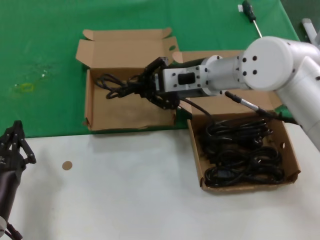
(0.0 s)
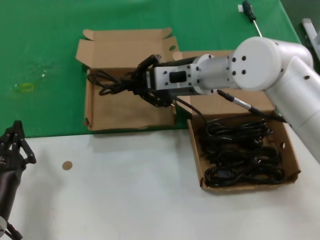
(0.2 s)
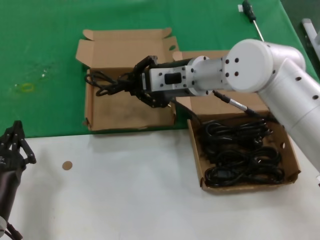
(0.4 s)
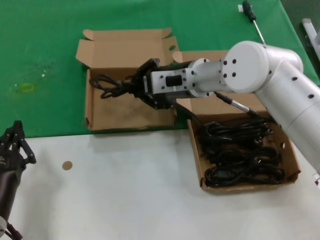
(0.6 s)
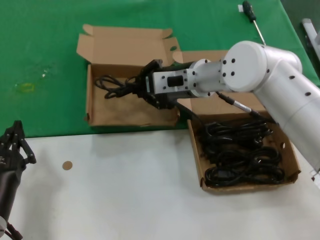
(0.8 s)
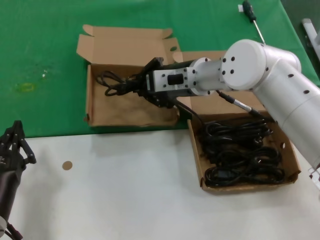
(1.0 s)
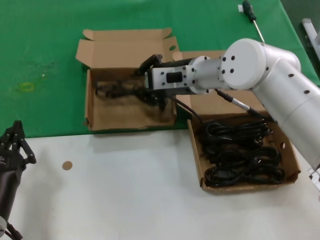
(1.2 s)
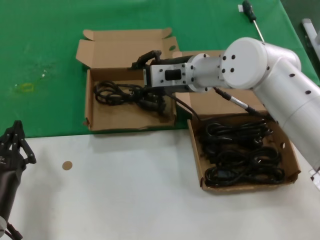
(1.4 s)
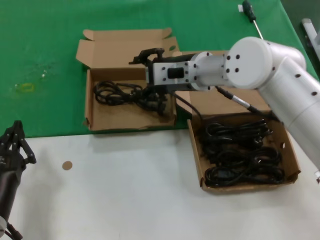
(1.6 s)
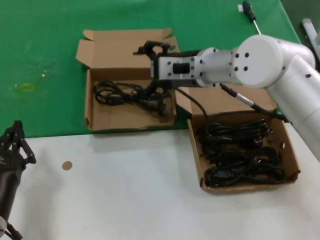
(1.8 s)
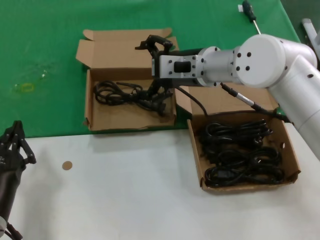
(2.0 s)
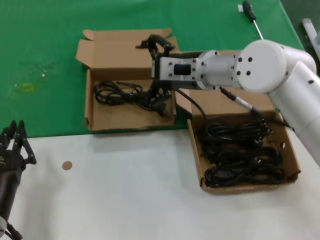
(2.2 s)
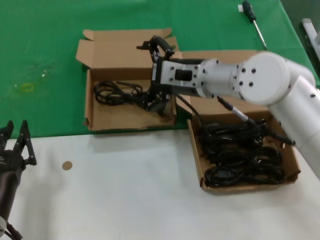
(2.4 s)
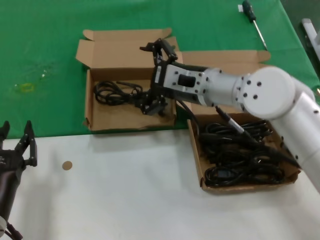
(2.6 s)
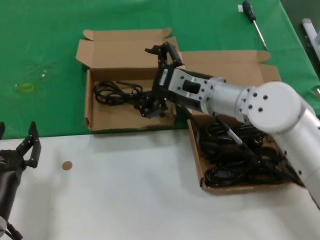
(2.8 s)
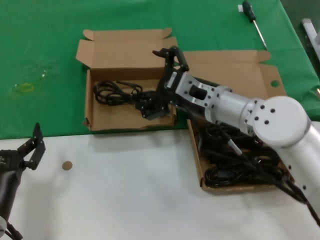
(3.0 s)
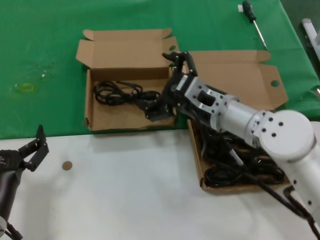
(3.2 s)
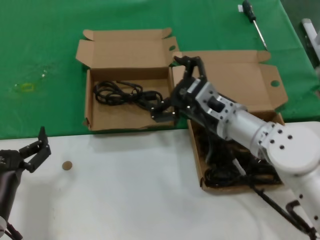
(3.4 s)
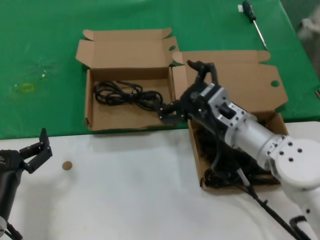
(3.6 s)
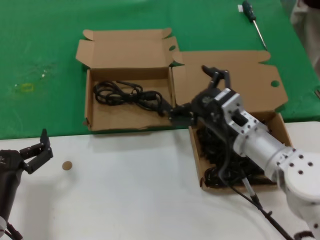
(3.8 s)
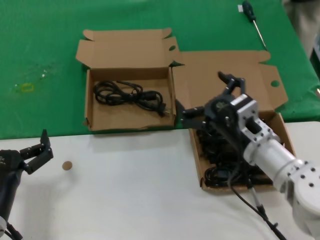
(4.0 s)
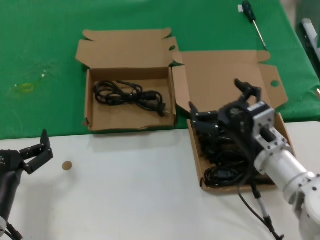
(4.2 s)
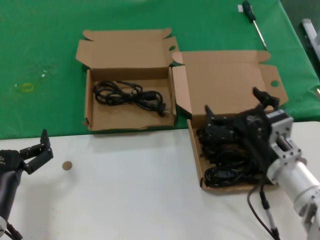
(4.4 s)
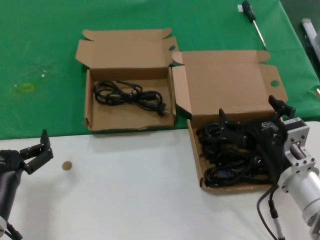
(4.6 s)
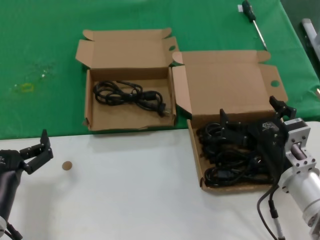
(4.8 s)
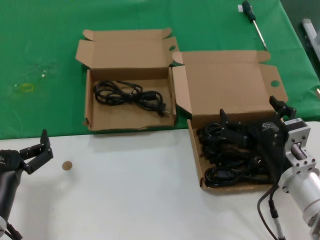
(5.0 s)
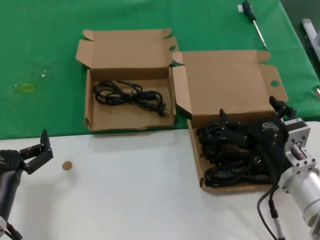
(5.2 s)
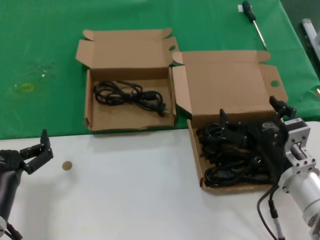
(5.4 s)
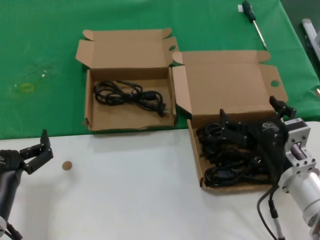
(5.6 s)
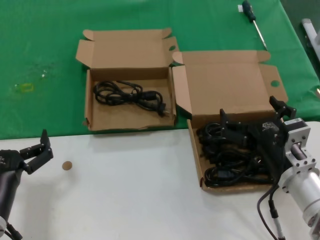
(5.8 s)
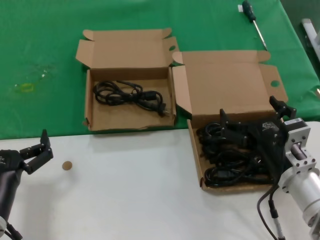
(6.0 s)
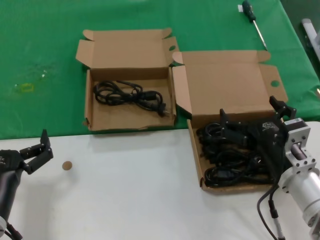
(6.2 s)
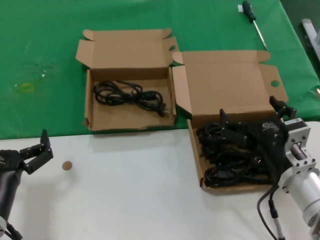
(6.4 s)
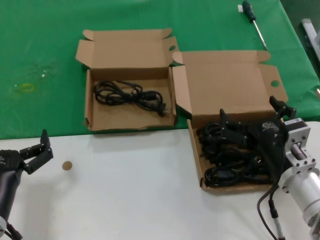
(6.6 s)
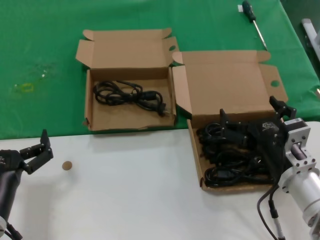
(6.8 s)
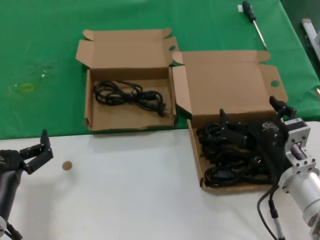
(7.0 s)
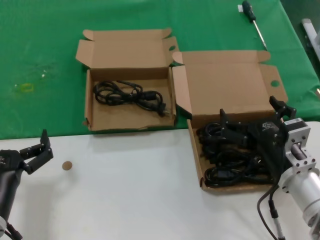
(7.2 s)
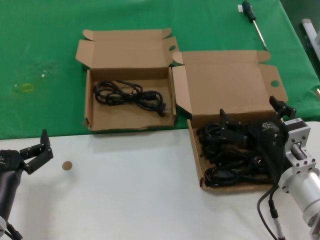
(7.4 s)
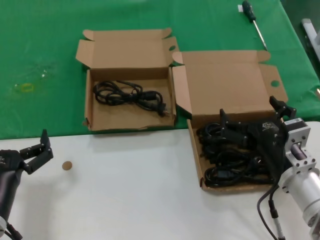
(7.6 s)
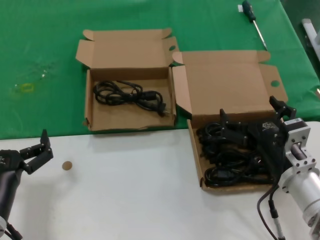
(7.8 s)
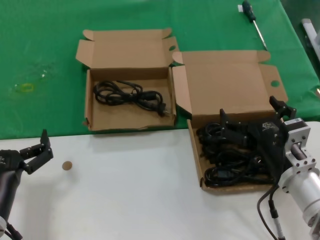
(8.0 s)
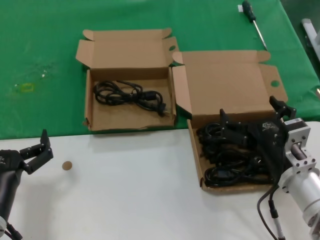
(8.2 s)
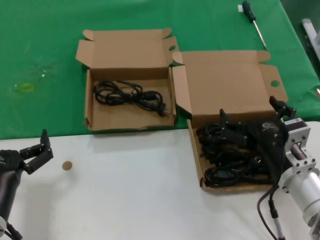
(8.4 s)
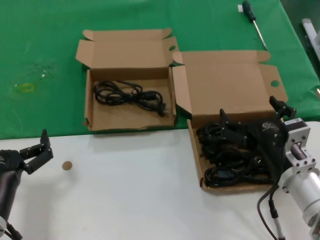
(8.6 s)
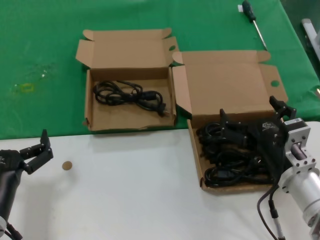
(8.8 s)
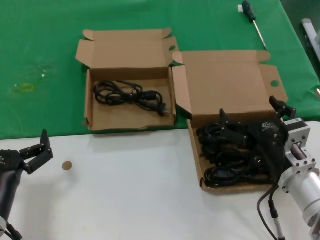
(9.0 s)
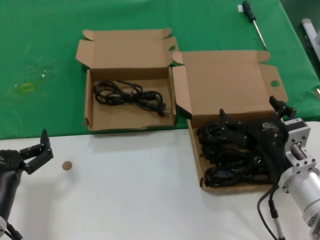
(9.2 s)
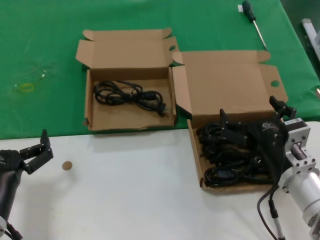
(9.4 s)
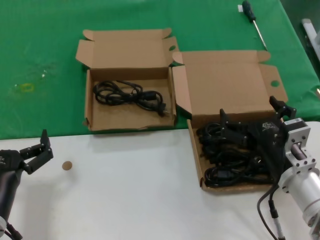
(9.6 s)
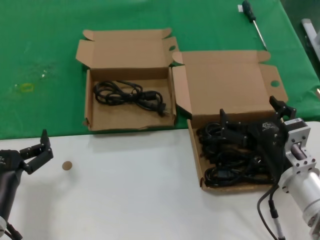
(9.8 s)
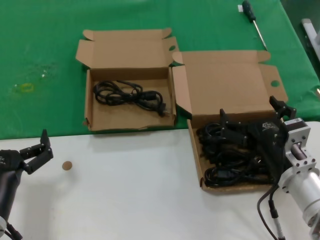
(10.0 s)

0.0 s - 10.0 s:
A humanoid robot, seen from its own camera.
Task of the whole recording: take the parts from the box containing them and put them into an empty box.
0.0 s - 1.4 s: The hands make only small movements.
1.4 s - 2.8 s: The right hand shifts by approximately 5 cm.
2.8 s - 4.2 s: The right hand shifts approximately 15 cm backward, downward and to the right.
4.2 s - 5.8 s: The right hand ends up about 5 cm from where it was.
5.8 s - 10.0 s: Neither hand changes place.

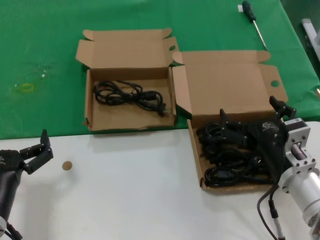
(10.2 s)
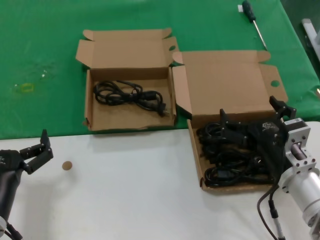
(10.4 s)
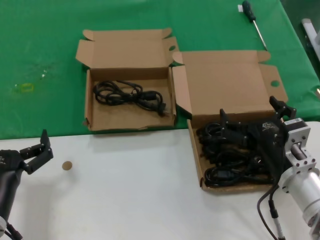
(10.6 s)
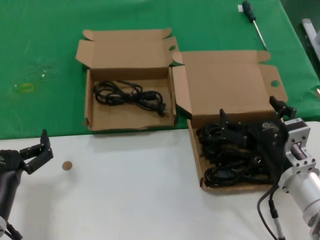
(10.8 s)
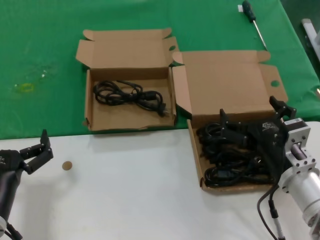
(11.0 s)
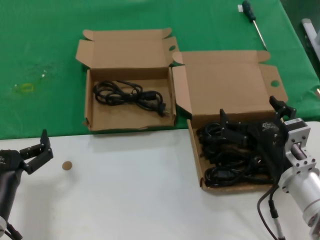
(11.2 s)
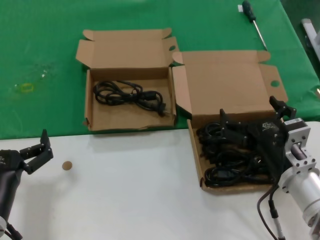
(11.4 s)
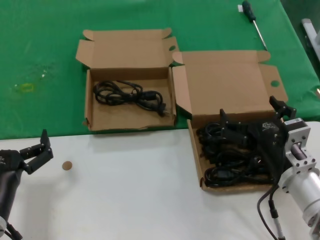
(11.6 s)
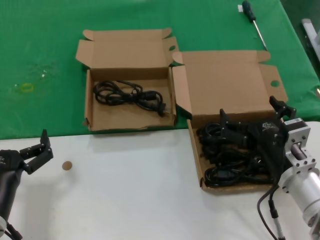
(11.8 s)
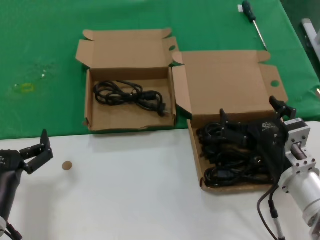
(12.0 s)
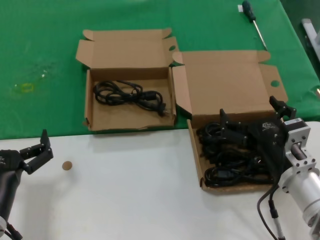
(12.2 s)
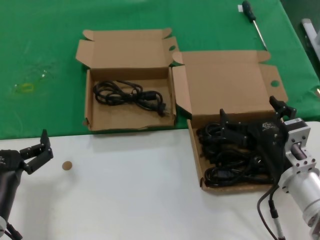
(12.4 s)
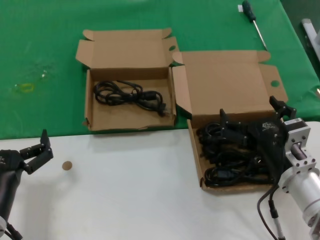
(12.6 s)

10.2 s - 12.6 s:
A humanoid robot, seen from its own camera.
Task of the whole recording: take the parts from the box containing them and put them into an empty box.
10.2 s - 12.6 s: Both hands stay put.
